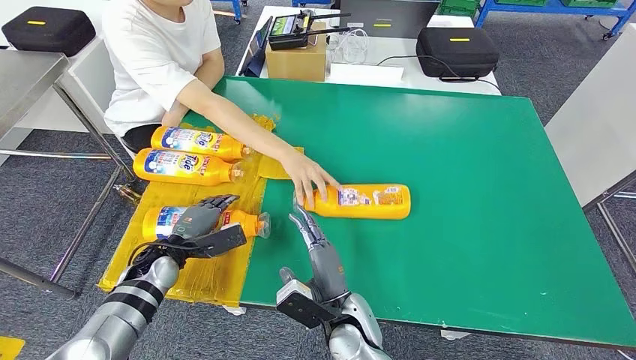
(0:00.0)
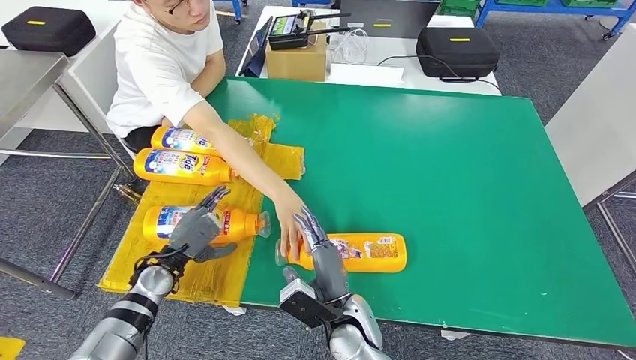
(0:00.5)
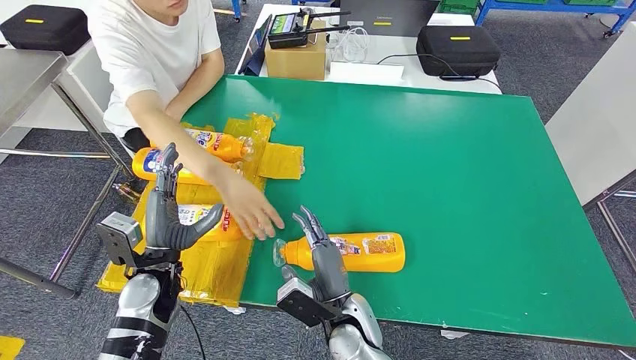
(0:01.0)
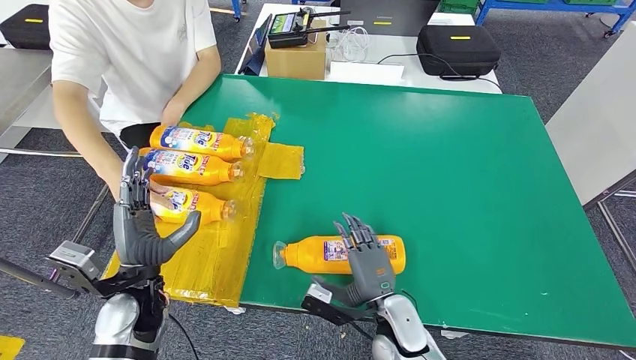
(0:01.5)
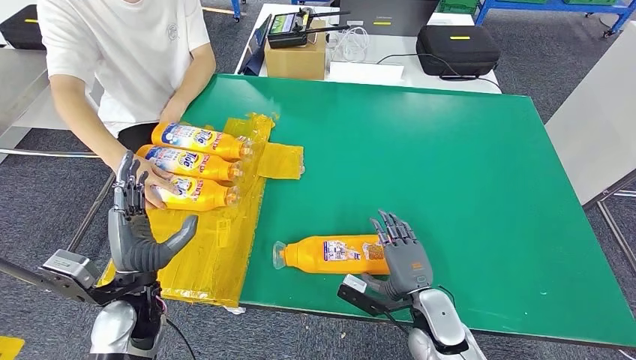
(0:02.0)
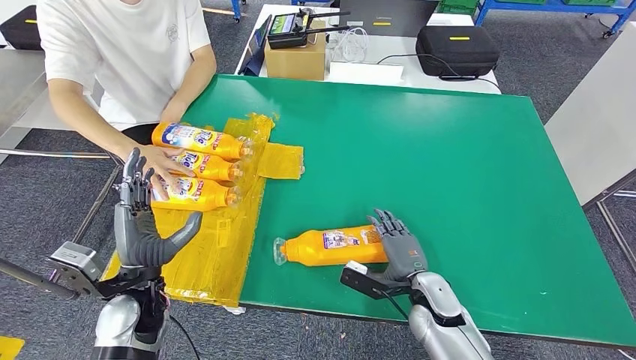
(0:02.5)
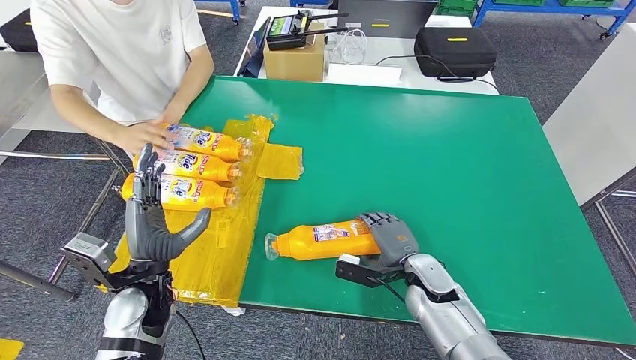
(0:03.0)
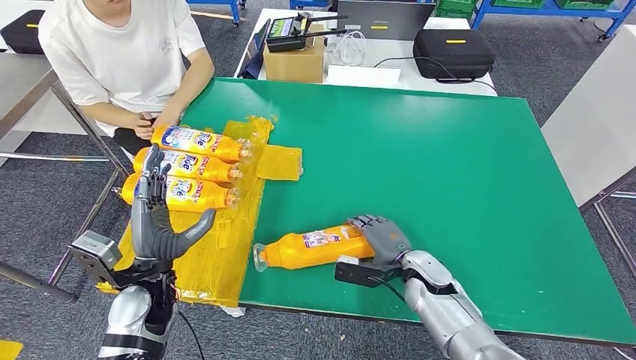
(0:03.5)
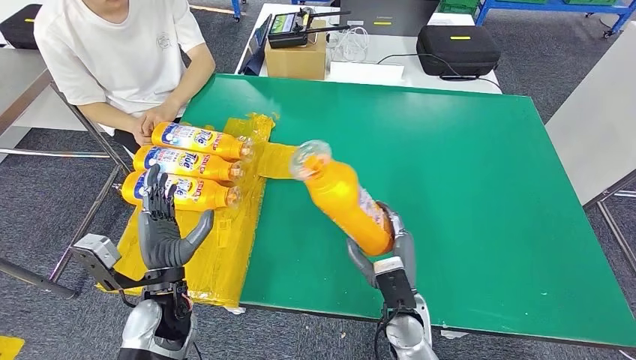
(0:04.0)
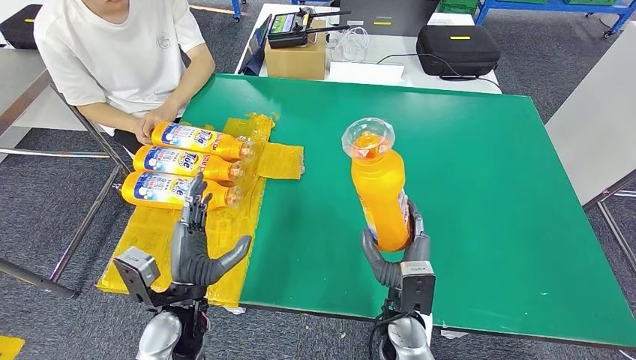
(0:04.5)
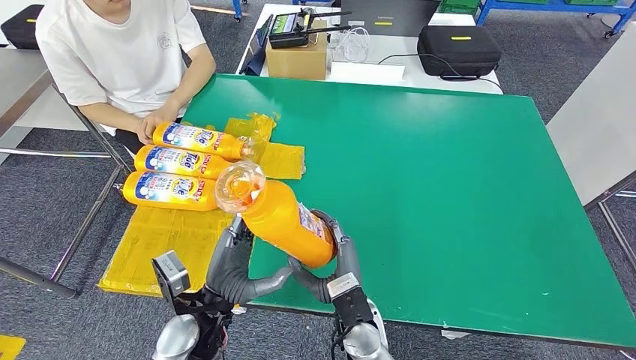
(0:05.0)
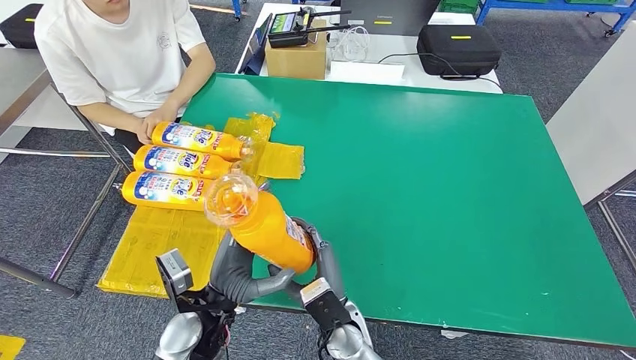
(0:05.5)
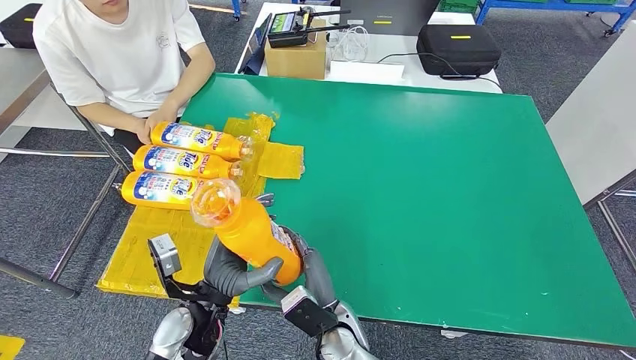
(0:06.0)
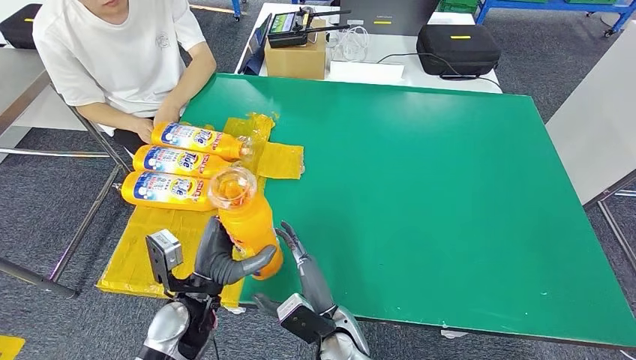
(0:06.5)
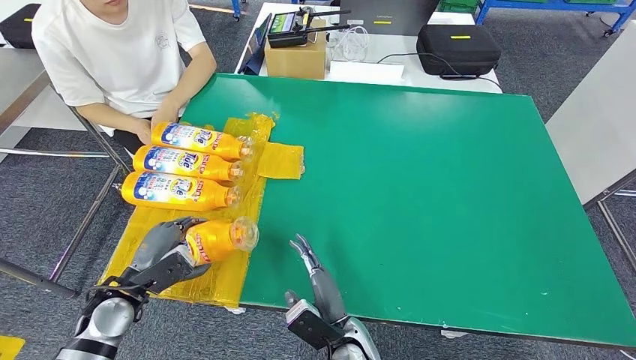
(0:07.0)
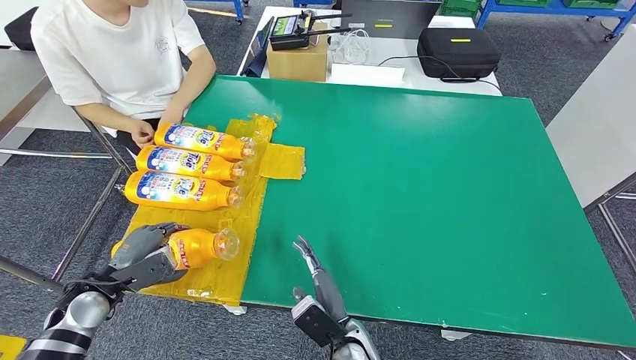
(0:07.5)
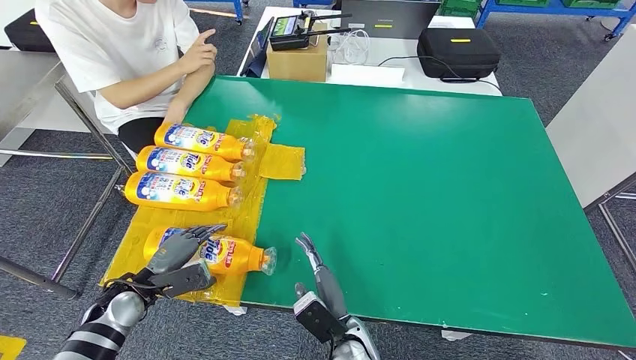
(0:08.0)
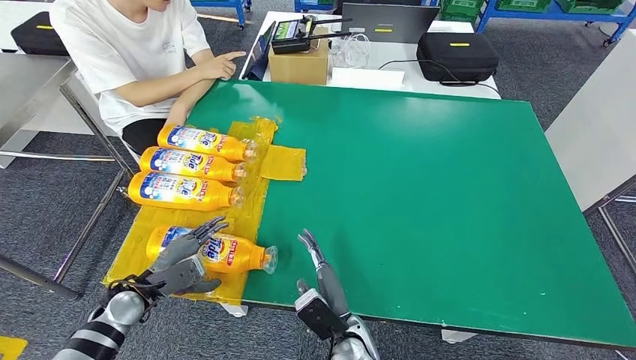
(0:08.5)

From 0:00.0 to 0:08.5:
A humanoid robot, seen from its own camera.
Step, from 0:00.0 to 0:02.0: Flip the fast-moving consumer goods bottle to the front side.
Step, from 0:02.5 to 0:05.0: Pick up the fast-moving consumer goods bottle from the table.
Step, from 0:05.5 to 0:08.5: Flip the fast-moving consumer goods bottle to the front side.
From 0:04.0 to 0:06.5: The right hand moves to the left, about 10 cm.
